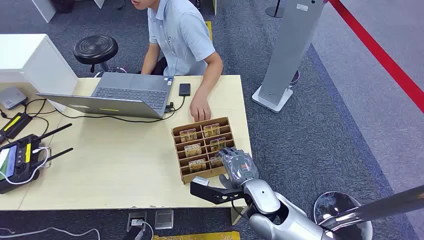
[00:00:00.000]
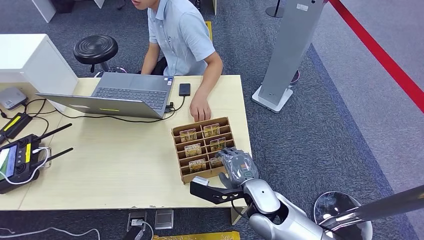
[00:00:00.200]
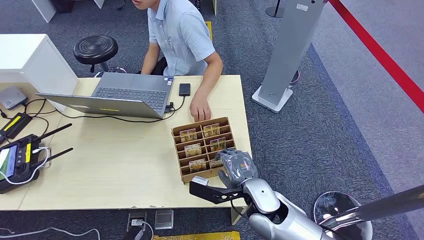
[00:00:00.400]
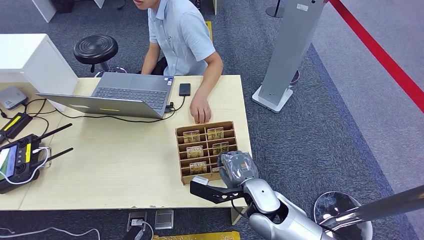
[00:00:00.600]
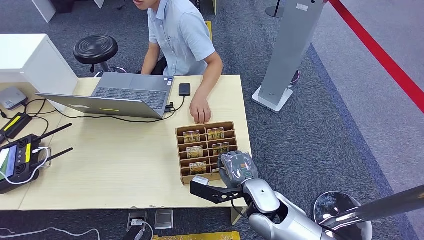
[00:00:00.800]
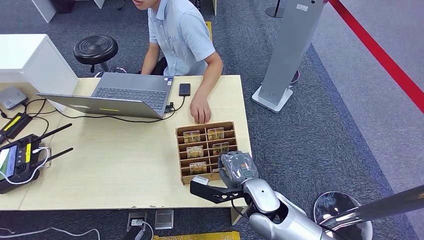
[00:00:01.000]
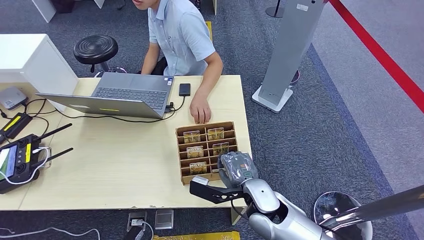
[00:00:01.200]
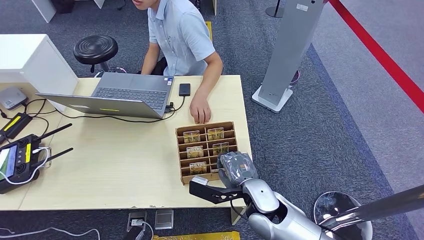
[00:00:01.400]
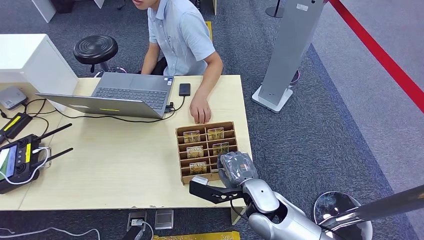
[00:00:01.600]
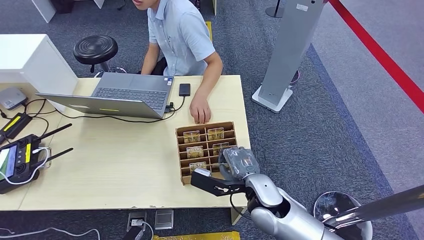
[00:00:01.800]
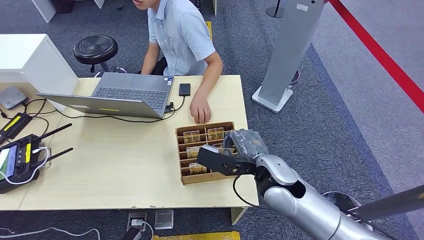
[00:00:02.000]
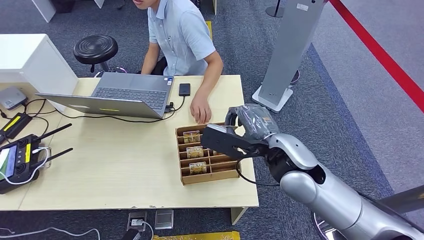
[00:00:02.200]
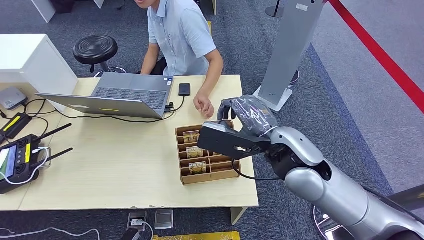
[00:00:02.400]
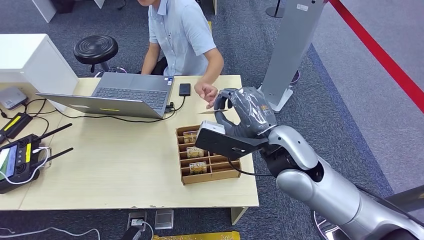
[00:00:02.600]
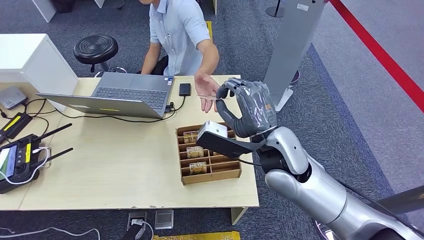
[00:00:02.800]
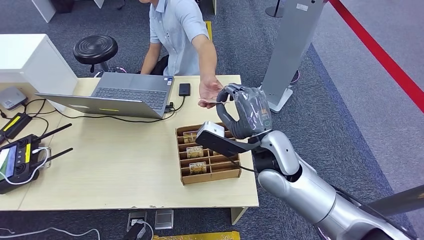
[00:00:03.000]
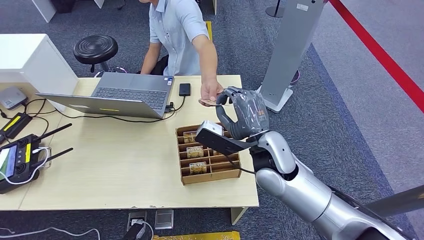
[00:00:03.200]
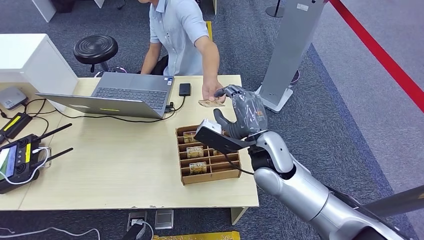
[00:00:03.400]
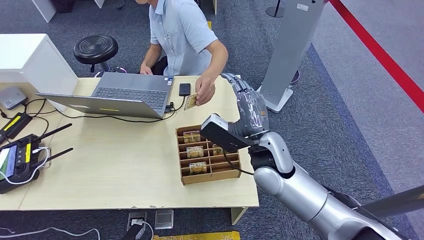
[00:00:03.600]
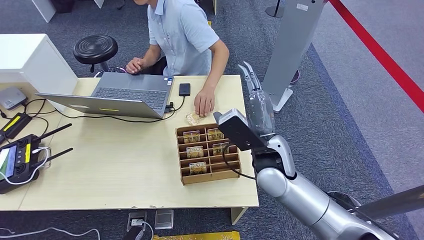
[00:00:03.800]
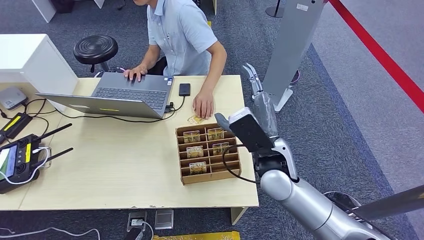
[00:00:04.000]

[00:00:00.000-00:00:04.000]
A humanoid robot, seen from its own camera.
Step, 00:00:00.000 to 00:00:02.200: Pick up the room card from the card holder.
Step, 00:00:02.400 to 00:00:04.000: Hand the room card to the target.
00:00:01.400 to 00:00:02.600: The right hand goes about 15 cm upward.
00:00:02.600 to 00:00:04.000: The right hand moves downward, roughly 5 cm.
